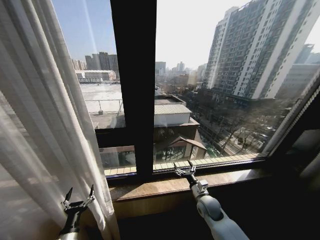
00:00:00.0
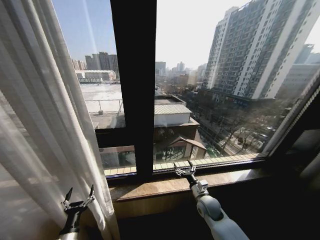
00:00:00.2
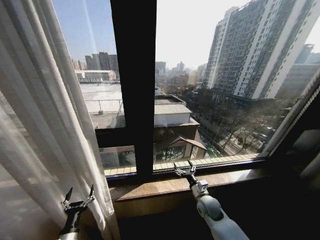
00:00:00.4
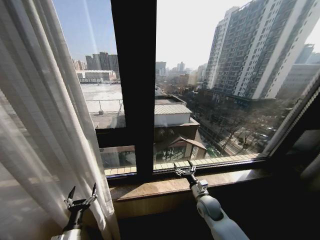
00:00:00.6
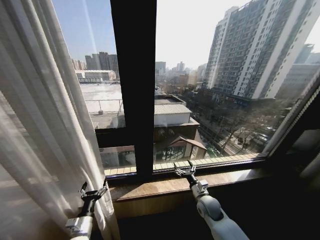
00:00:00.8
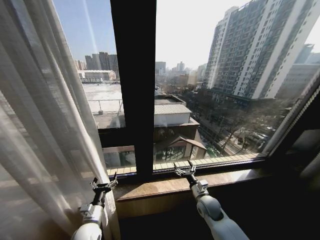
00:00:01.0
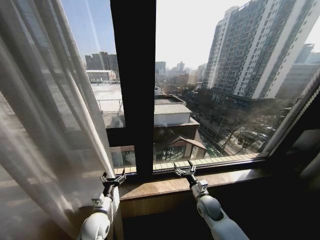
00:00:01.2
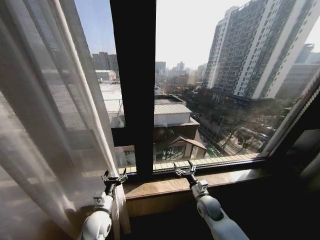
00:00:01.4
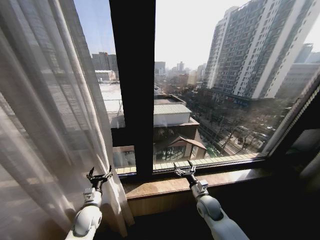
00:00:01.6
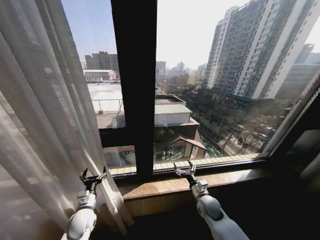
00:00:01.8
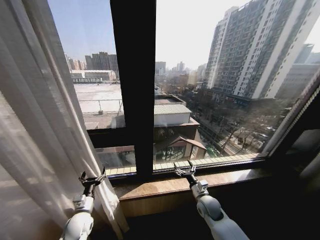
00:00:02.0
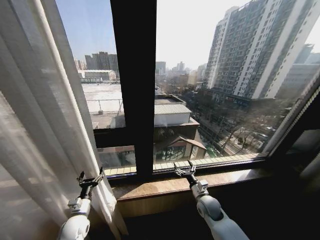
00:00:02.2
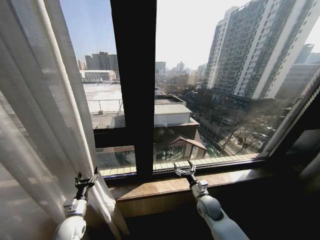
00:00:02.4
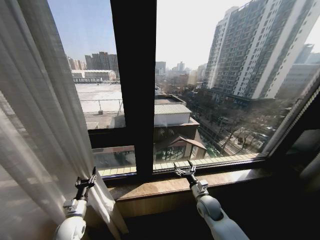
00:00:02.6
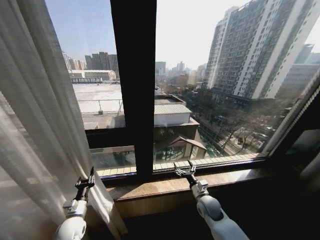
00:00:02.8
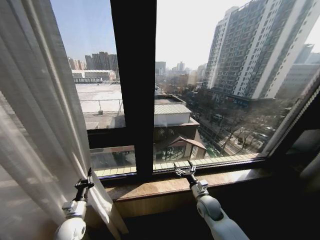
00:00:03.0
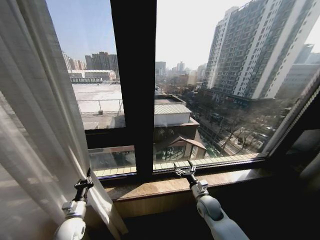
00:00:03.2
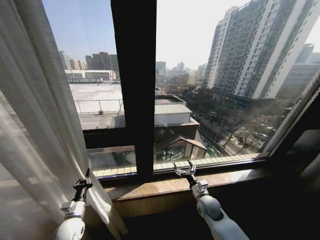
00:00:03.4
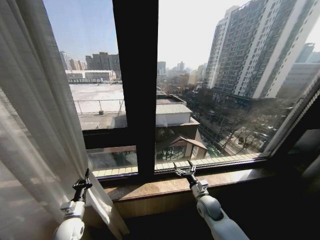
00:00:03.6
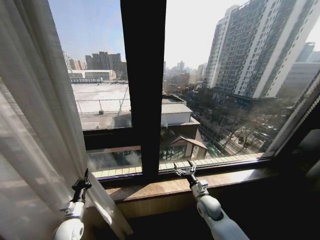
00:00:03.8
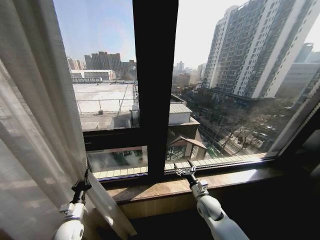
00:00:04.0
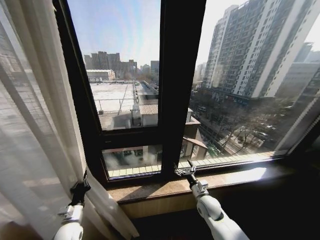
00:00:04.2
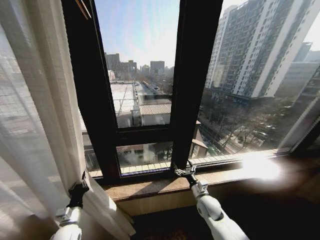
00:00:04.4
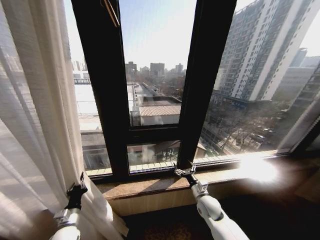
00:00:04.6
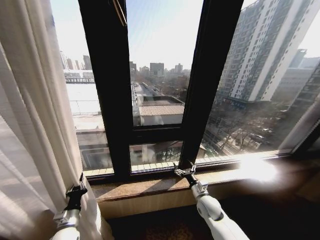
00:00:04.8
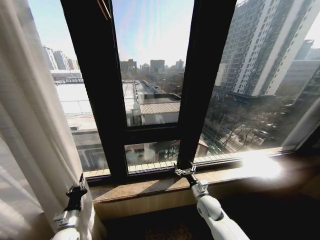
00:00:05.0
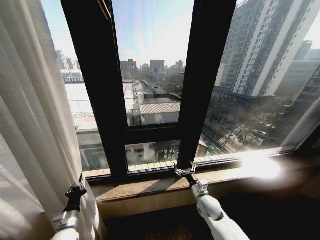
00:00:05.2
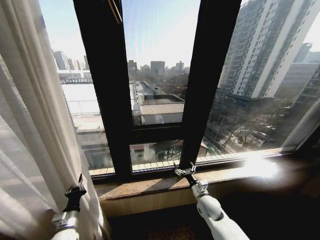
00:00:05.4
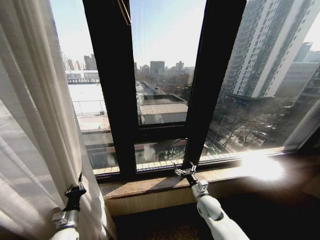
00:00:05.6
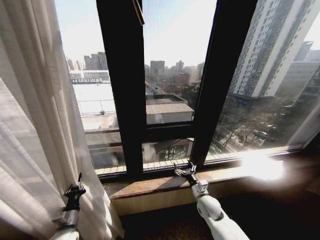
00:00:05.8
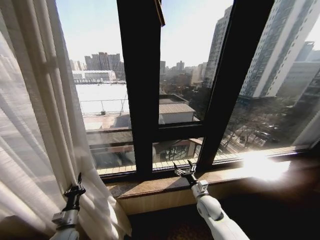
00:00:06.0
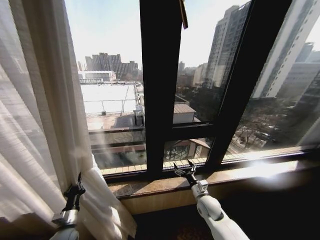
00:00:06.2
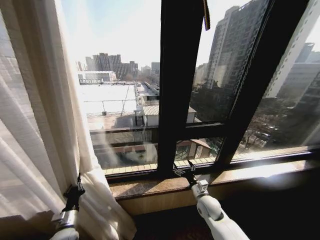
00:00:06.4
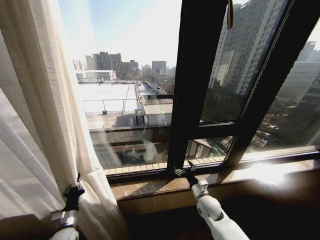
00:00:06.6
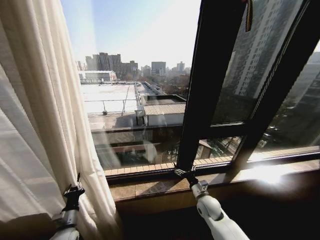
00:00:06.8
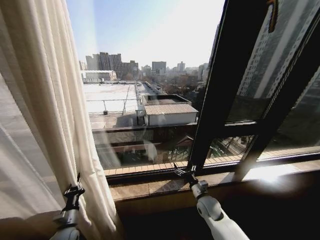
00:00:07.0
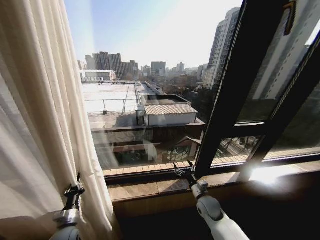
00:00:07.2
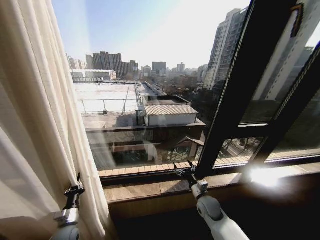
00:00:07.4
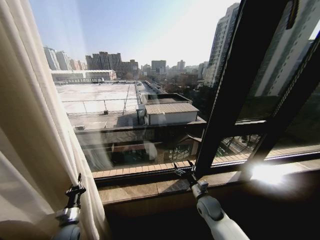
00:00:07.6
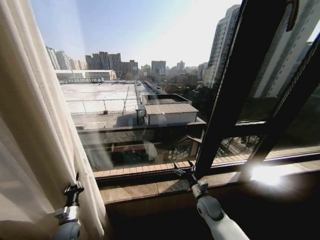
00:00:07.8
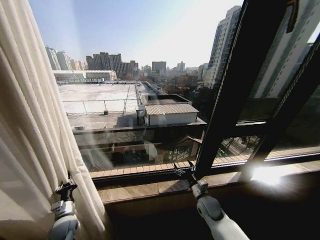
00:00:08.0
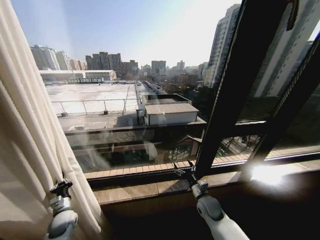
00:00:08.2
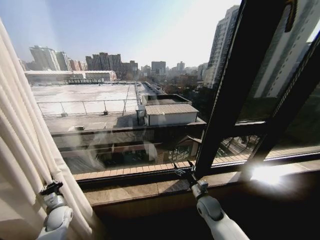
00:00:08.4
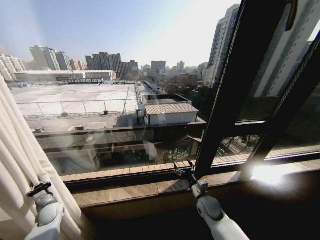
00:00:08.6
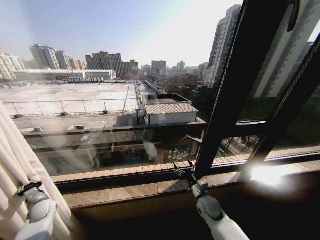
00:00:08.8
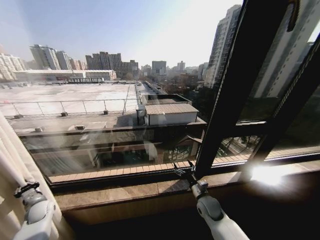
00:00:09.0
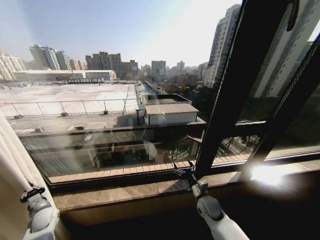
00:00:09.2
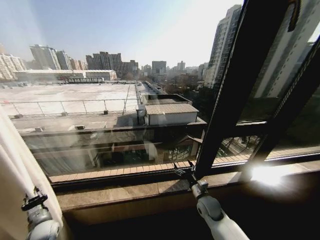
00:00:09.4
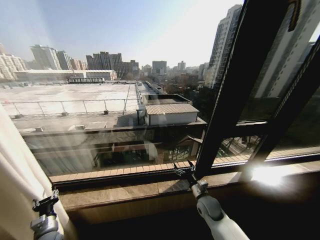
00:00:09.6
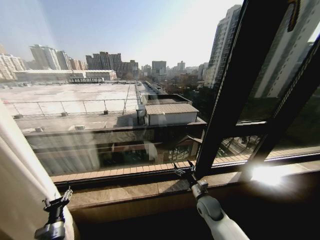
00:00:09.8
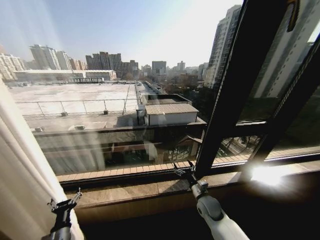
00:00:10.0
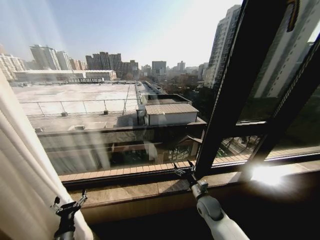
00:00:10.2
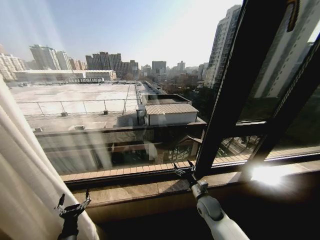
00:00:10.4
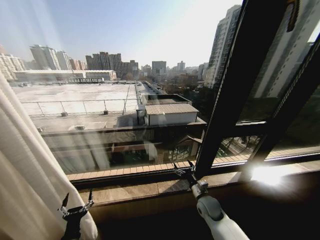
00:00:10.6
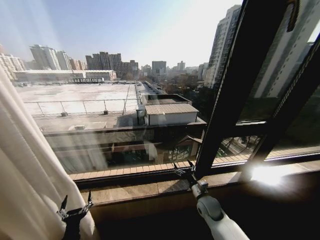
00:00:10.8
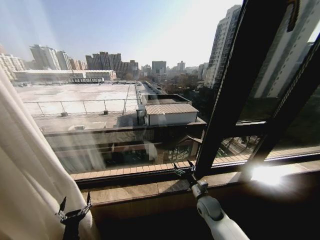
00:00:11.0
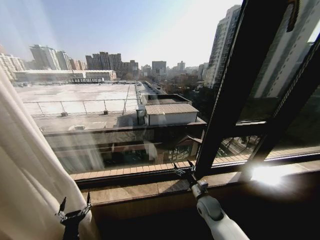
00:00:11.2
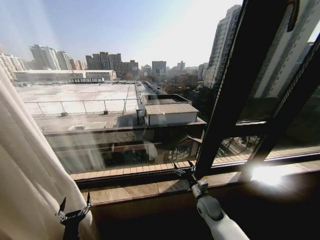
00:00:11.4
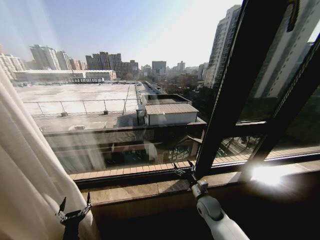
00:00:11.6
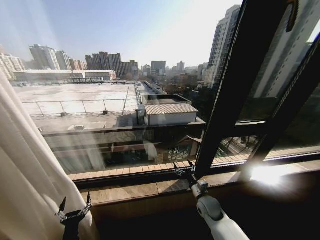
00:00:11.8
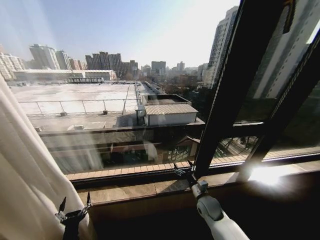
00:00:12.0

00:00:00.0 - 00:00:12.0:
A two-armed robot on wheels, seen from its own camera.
Task of the whole recording: Open the curtains by pulling them apart, changing their state from closed to fully open.
00:00:00.0 - 00:00:01.6: The left gripper heads forward, covering about 15 cm.
00:00:01.6 - 00:00:03.0: The left gripper moves to the left, roughly 5 cm, and closes.
00:00:07.6 - 00:00:09.0: The left gripper is displaced to the left and forward by approximately 20 cm.
00:00:09.0 - 00:00:10.4: The left gripper goes about 30 cm to the right and backward, and opens its fingers.
00:00:10.4 - 00:00:12.0: The grippers stay close to where they were, moving slightly.
